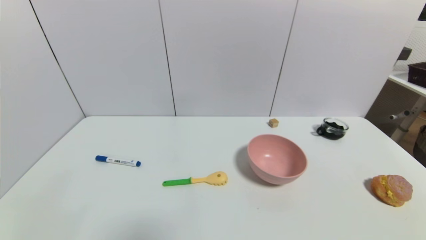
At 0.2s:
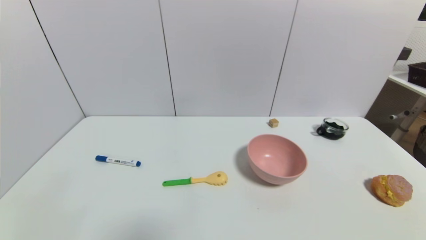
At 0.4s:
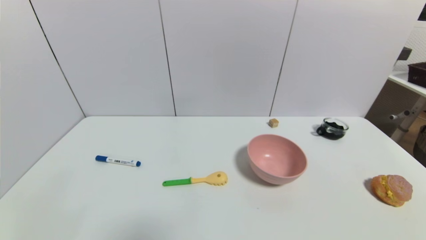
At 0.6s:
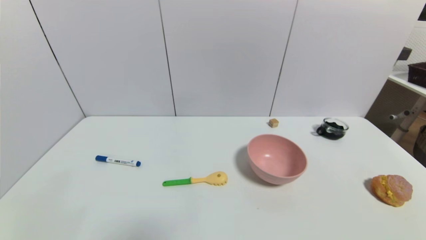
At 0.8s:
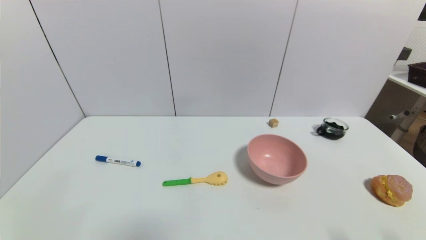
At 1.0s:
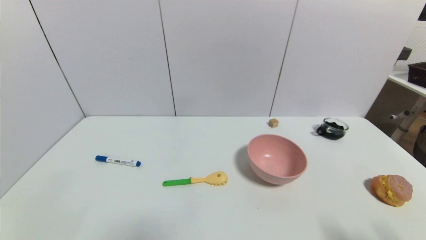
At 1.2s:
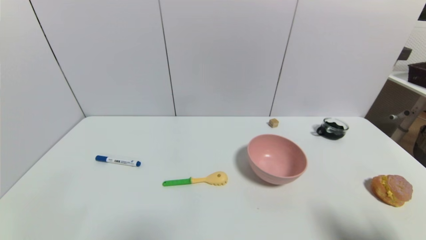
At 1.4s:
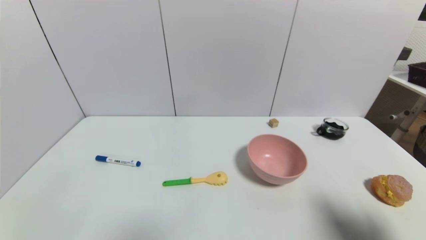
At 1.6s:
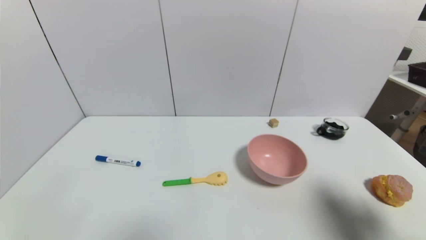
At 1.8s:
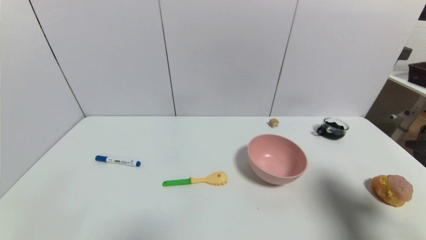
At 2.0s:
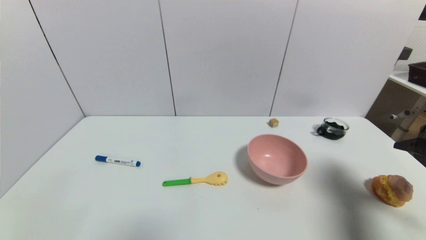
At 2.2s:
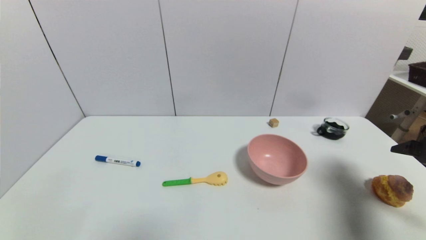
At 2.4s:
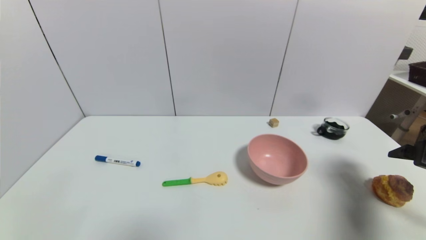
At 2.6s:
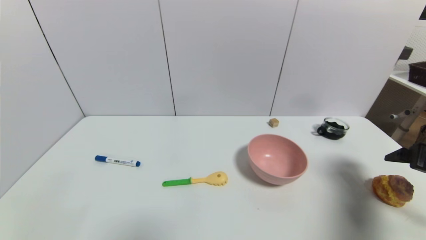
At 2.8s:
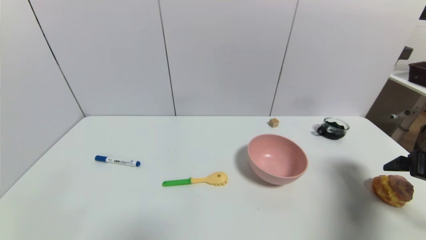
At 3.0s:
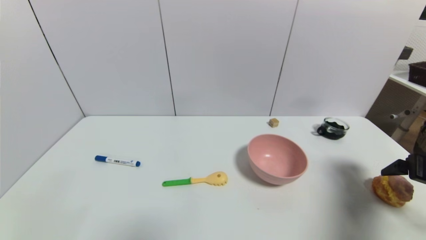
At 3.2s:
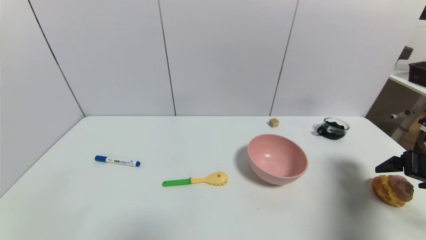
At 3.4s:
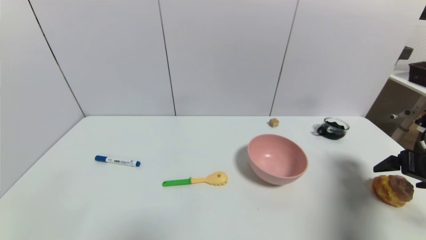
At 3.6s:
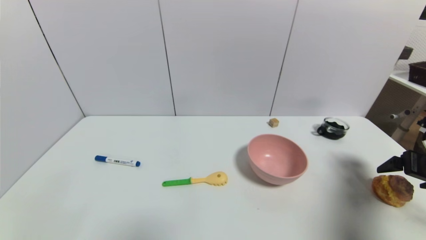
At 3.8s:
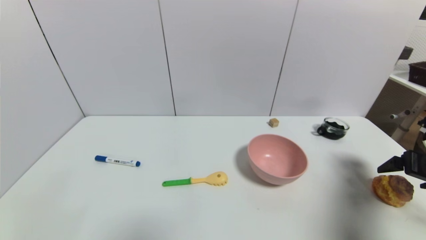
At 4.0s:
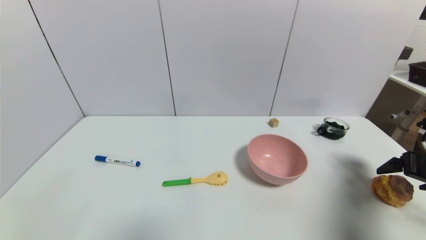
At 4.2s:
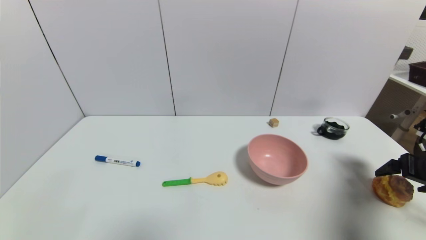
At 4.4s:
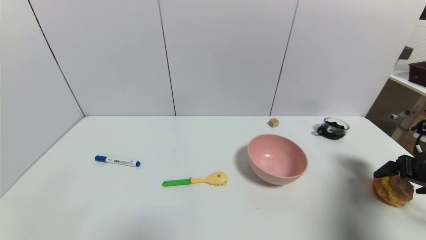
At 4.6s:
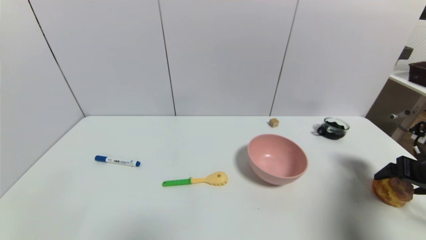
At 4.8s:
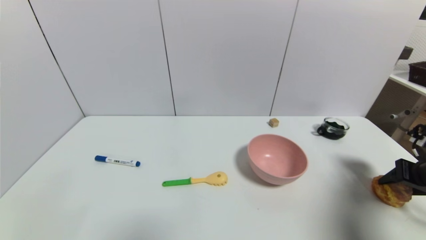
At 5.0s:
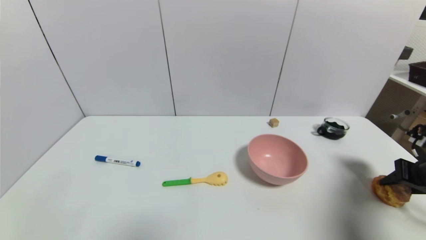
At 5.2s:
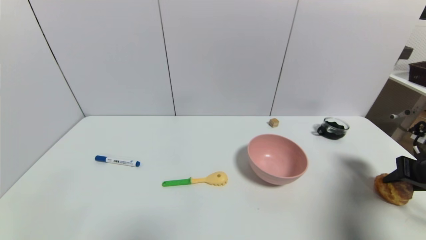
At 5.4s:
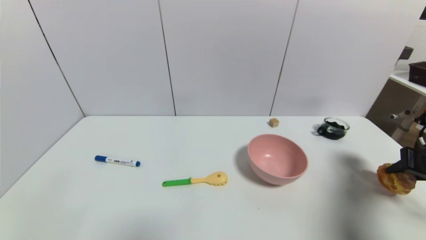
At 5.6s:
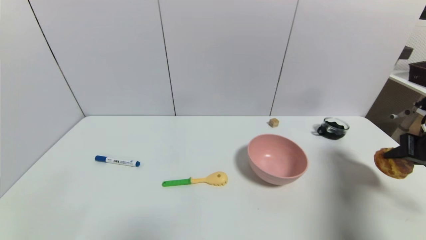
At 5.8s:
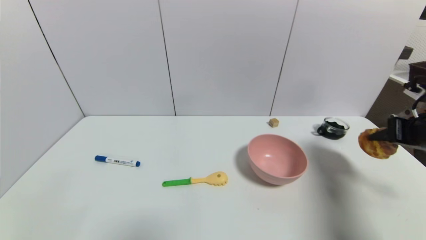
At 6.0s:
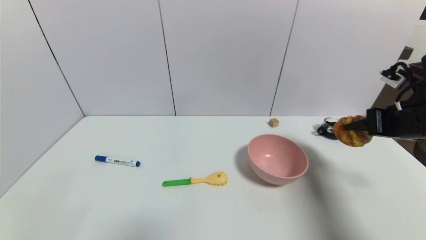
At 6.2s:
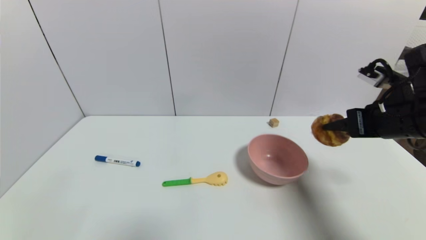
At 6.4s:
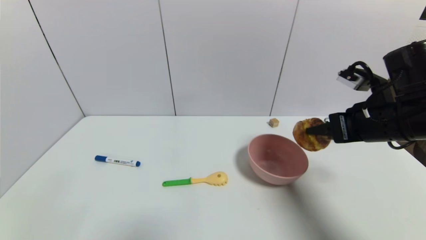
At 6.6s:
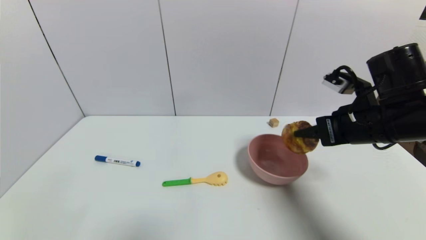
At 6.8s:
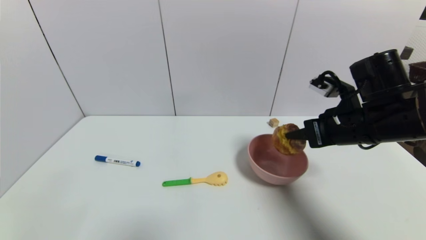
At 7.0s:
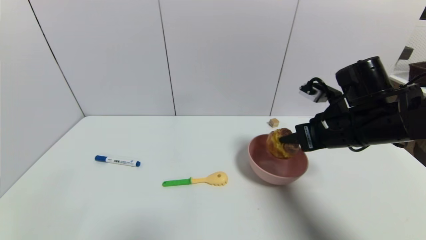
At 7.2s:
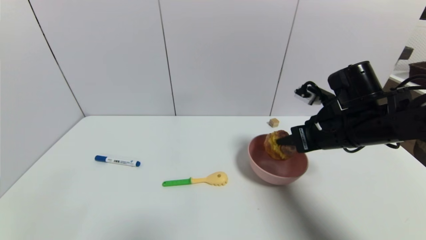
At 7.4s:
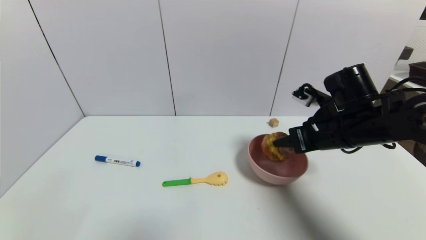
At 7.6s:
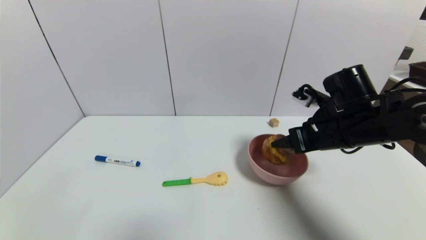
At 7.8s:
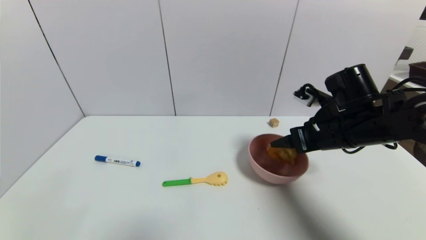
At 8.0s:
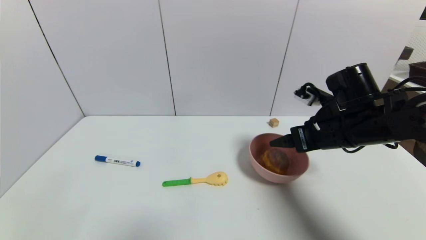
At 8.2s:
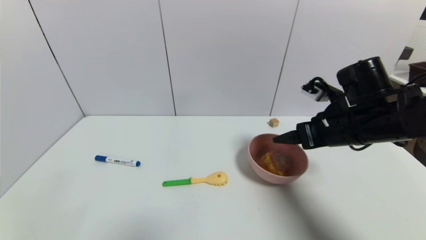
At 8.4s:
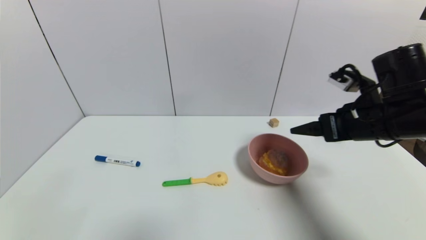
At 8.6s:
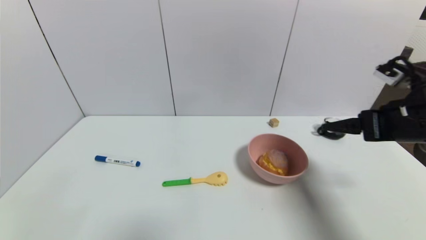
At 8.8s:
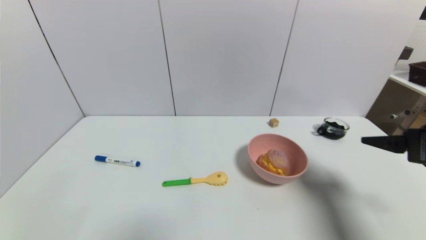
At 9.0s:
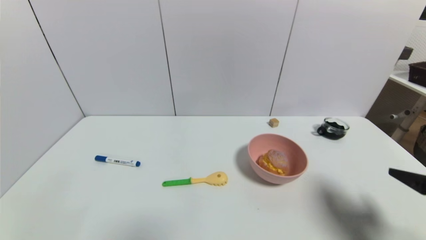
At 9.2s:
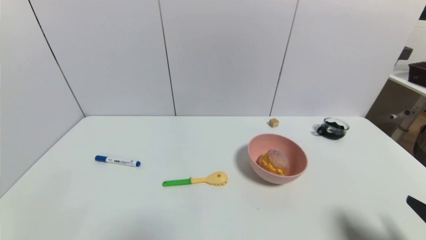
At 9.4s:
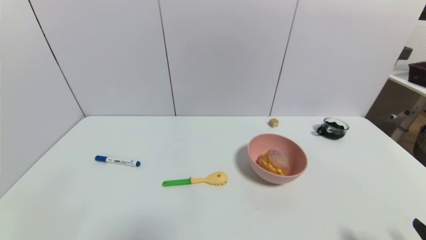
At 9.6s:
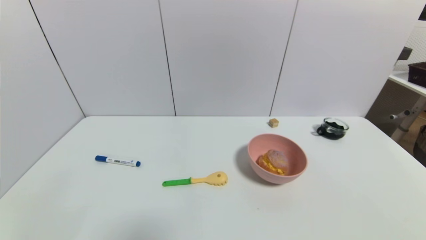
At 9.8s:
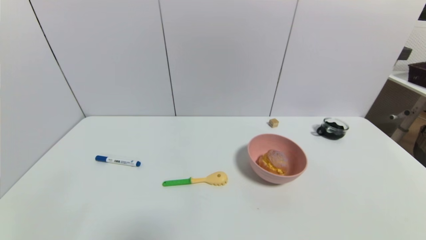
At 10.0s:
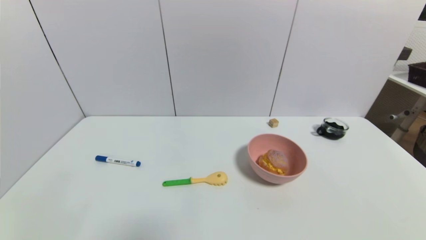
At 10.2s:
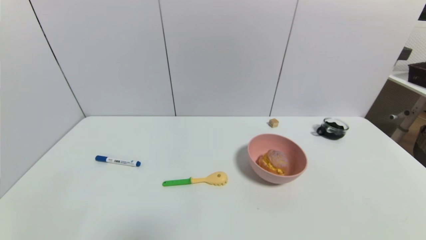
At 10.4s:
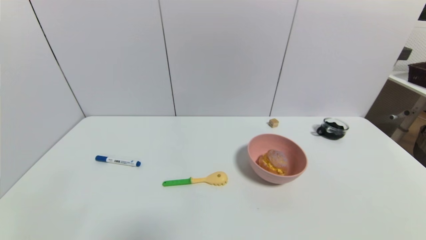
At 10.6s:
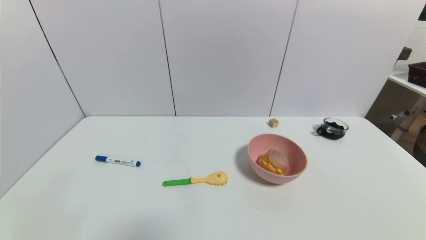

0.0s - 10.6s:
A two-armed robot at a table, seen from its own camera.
Task of the whole recording: use a gripper to pick the target object and place on the pink bowl.
Step, 0.0s - 5.0s: Grasp the round bread with the right gripper.
Step, 5.2s - 8.0s: Place the round bread on the pink bowl with the right gripper.
0.0s - 1.6s: The right gripper moves upward and forward, approximately 20 cm.
1.6s - 3.0s: The right gripper goes approximately 10 cm forward and downward.
3.0s - 4.6s: The grippers stay close to where they were, moving slightly.
4.6s - 6.0s: The right gripper shifts about 15 cm to the left and upward, and closes up.
6.0s - 7.6s: The right gripper travels to the left by some 10 cm, and opens up.
7.6s - 9.0s: The right gripper travels backward and to the right by some 20 cm, and opens.
9.0s - 10.6s: The right gripper shifts about 15 cm backward and downward.
